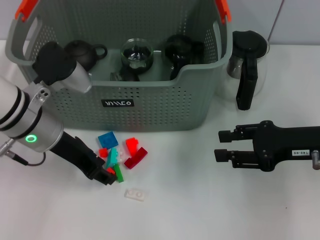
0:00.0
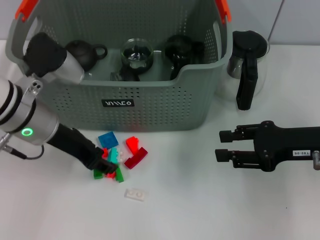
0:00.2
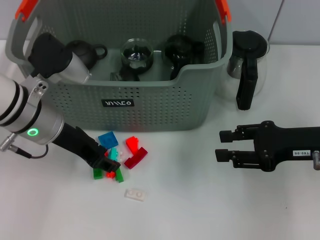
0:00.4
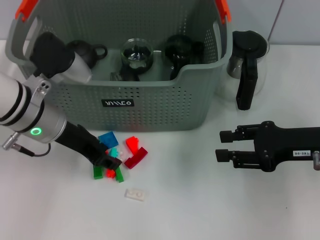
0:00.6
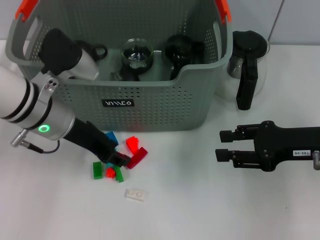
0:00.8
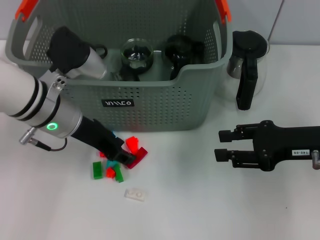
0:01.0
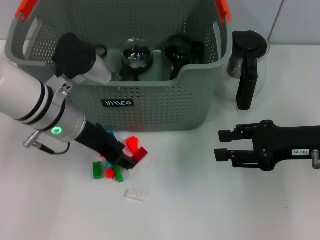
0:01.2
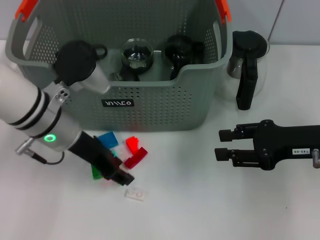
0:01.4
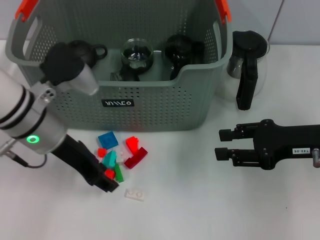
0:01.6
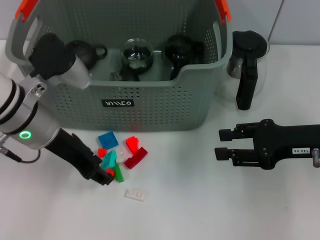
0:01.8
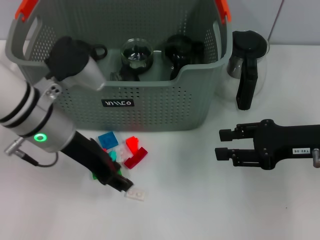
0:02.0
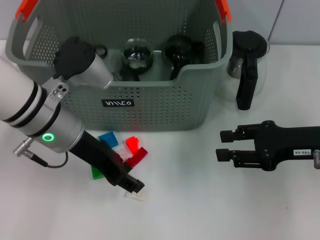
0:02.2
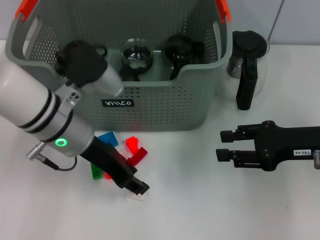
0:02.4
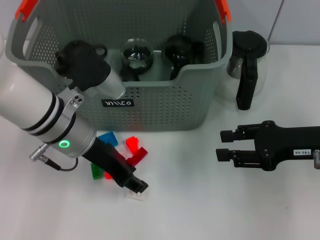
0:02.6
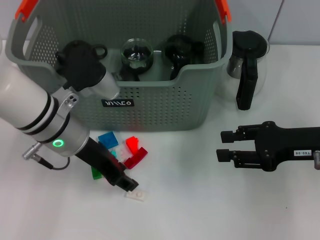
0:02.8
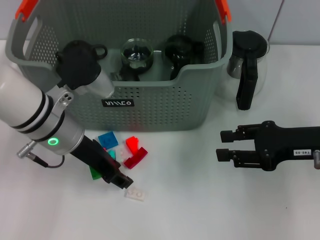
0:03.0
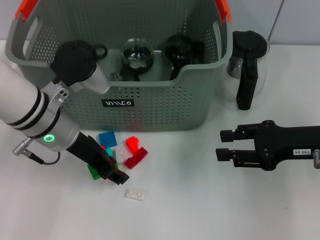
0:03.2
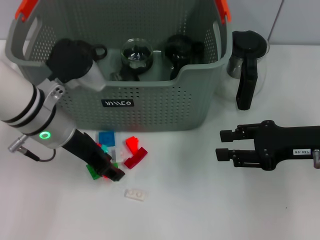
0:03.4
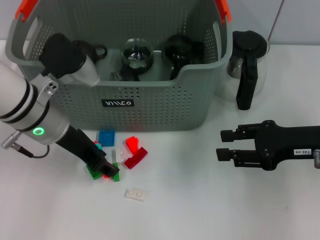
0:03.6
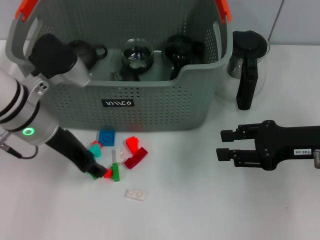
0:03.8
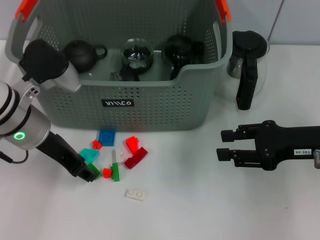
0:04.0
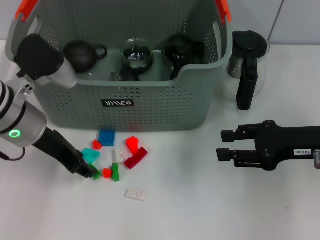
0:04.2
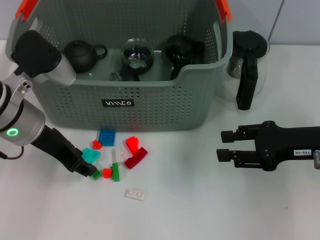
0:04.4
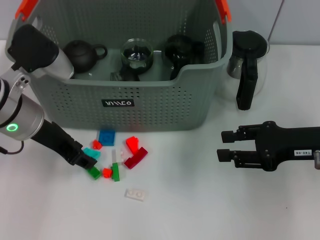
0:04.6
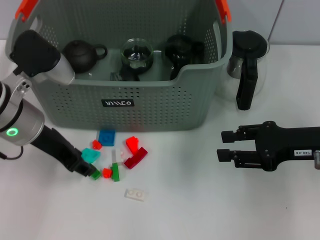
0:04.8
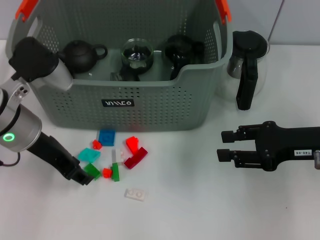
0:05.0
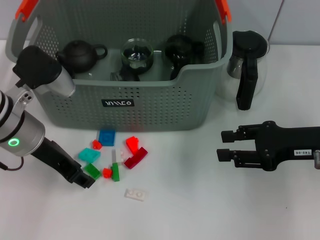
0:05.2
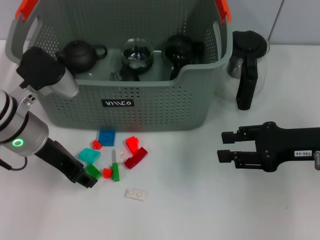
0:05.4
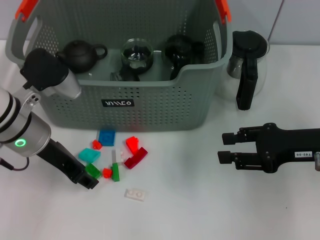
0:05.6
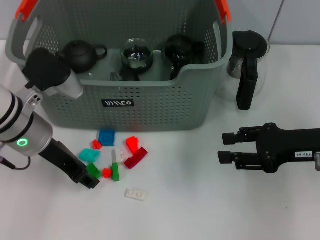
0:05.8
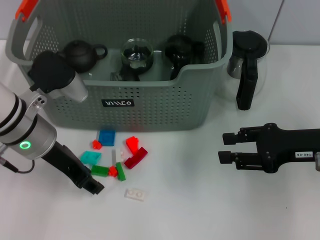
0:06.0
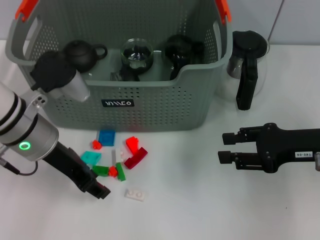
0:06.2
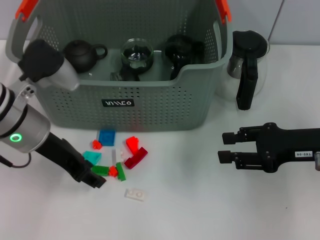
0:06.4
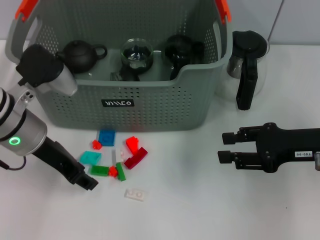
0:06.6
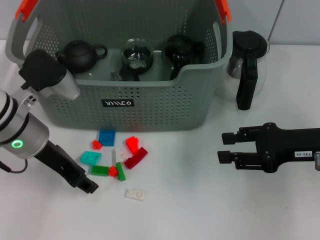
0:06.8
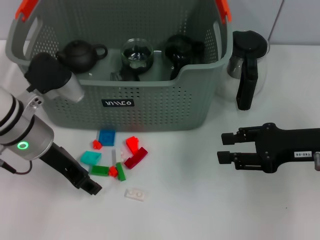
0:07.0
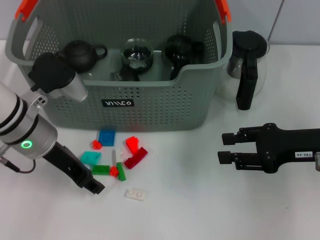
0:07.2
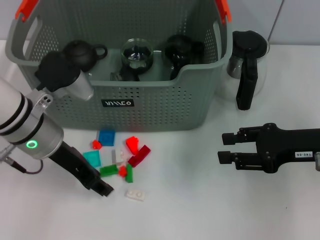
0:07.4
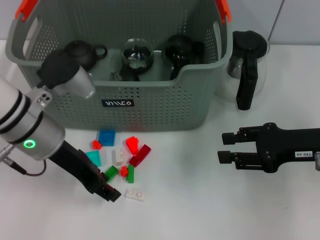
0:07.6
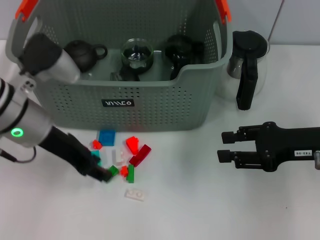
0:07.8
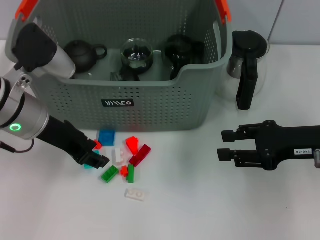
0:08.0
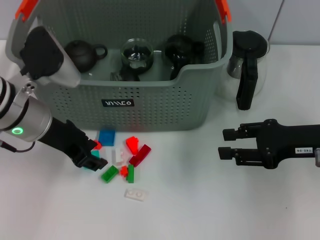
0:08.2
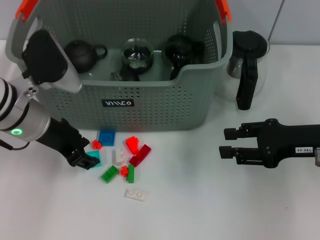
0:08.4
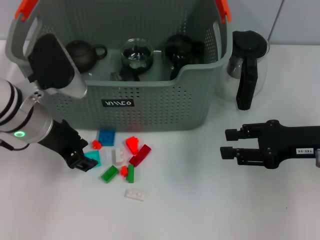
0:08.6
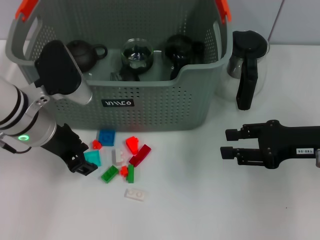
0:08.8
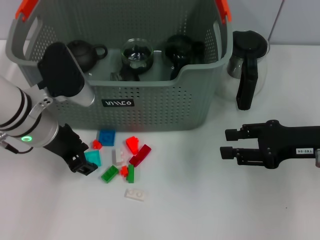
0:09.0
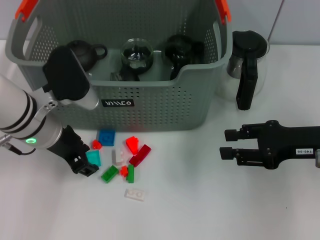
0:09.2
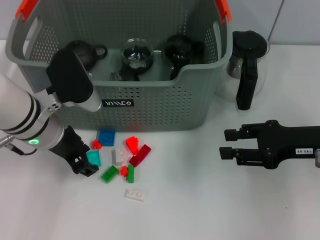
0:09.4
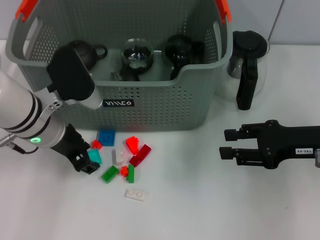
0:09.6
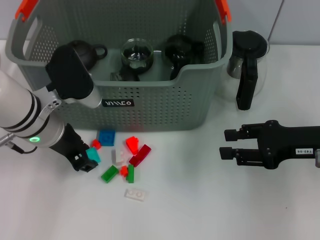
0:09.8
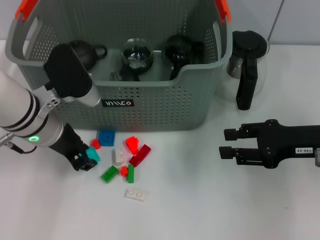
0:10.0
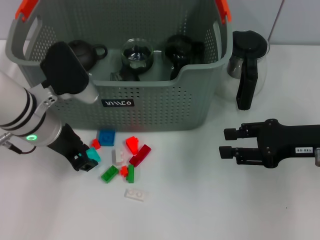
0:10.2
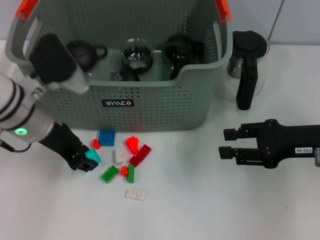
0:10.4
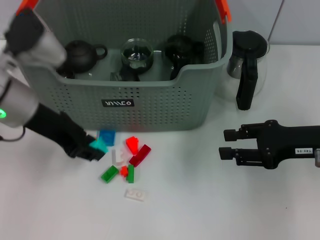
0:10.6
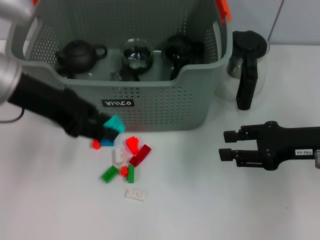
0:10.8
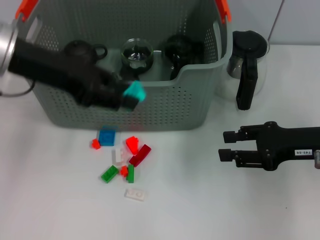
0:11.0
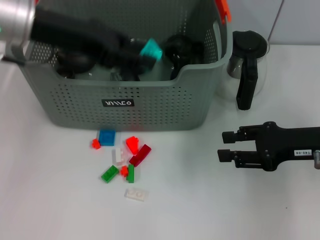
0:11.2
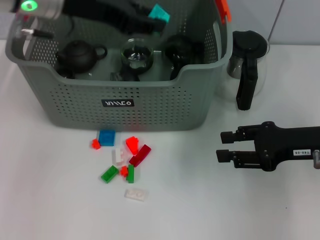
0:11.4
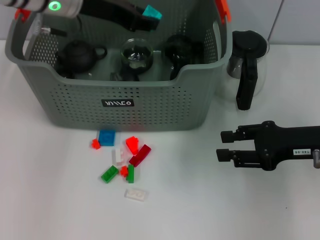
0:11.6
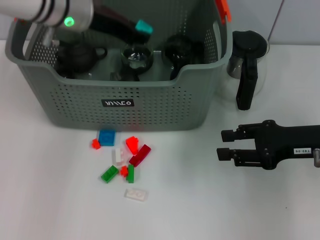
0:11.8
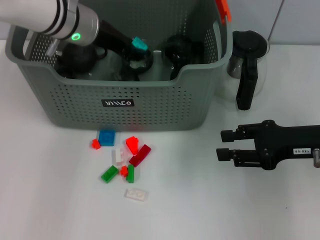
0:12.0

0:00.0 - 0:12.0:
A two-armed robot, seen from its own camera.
Task of the whole recording: pick up the teacup on the table and place it into the storage bin, pick up the block on the table and place it into the storage bin.
Step, 0:00.0 - 0:10.4: Grasp the light blue block with left gripper.
0:00.0 - 0:03.0: The grippers make only small movements.
0:03.0 - 0:04.4: The left gripper shifts by roughly 5 cm.
0:04.4 - 0:07.6: The grippers make only small movements.
0:09.0 - 0:10.4: The grippers make only small movements.
0:10.4 - 0:12.0: The left gripper is displaced forward by roughly 10 cm.

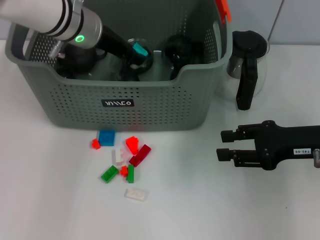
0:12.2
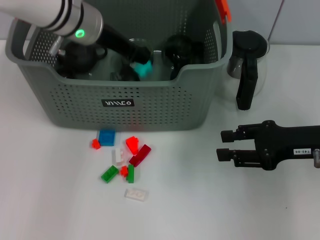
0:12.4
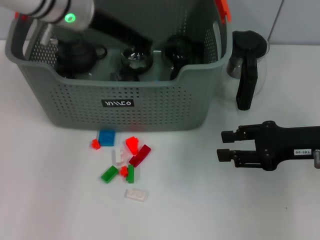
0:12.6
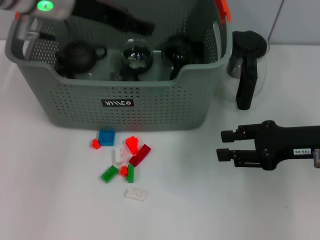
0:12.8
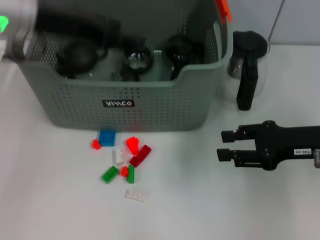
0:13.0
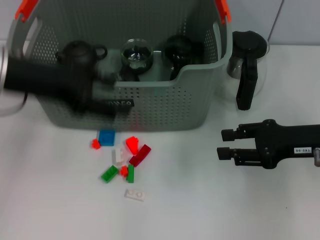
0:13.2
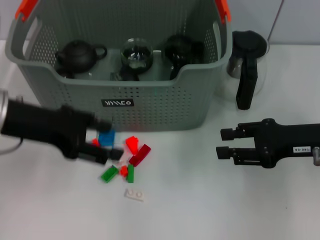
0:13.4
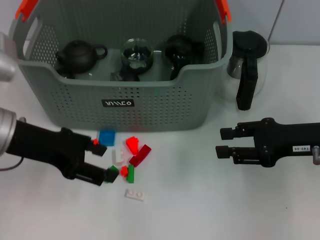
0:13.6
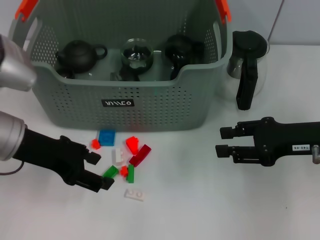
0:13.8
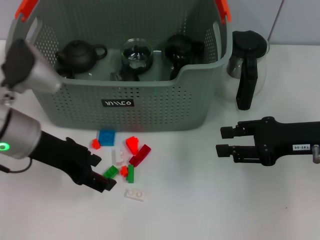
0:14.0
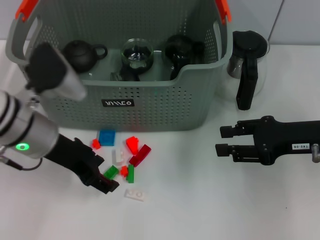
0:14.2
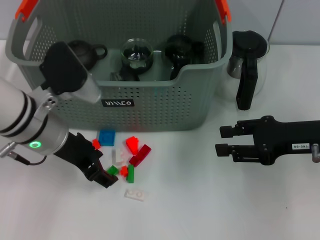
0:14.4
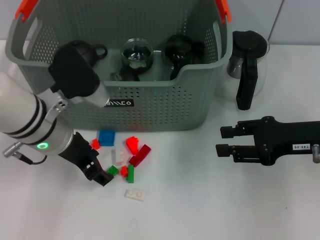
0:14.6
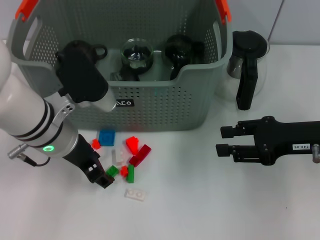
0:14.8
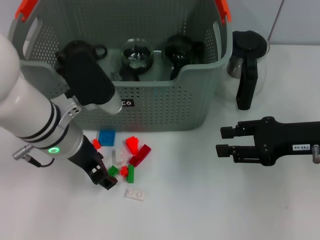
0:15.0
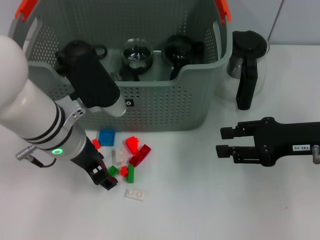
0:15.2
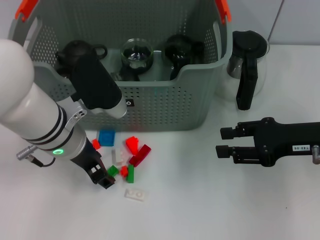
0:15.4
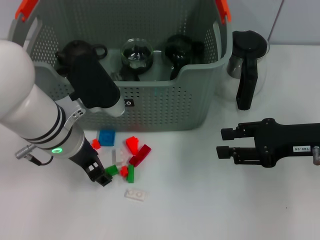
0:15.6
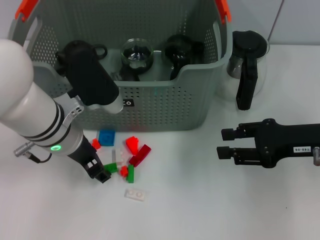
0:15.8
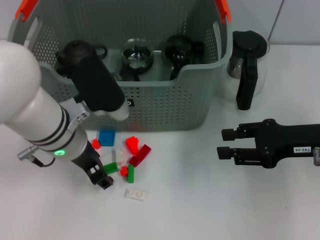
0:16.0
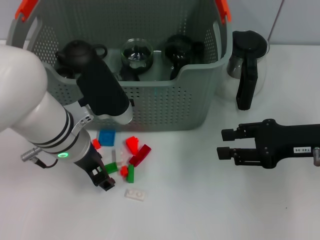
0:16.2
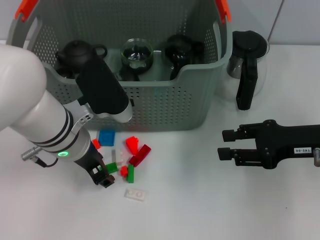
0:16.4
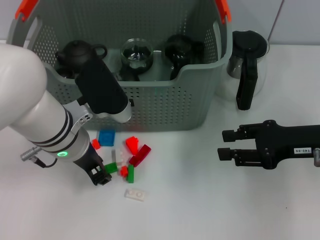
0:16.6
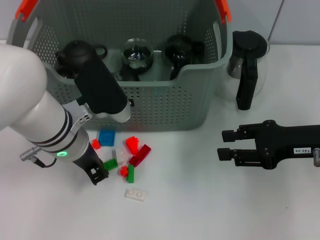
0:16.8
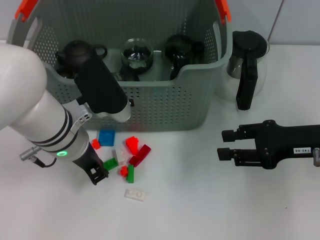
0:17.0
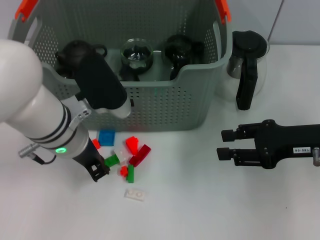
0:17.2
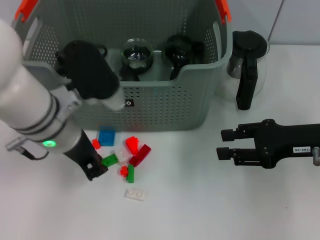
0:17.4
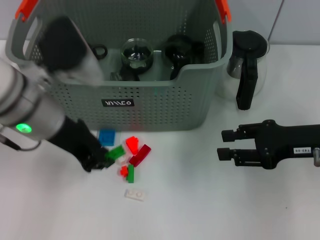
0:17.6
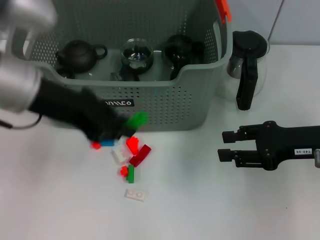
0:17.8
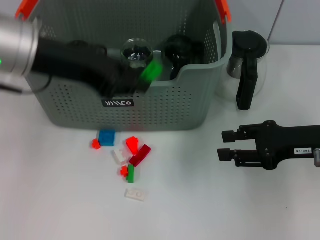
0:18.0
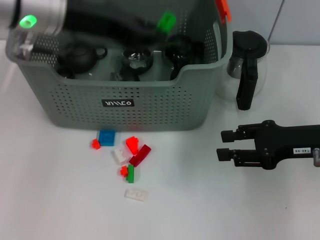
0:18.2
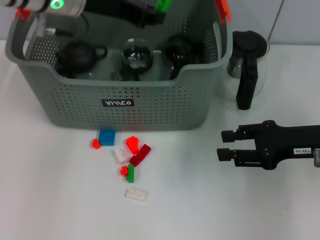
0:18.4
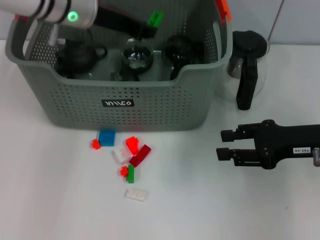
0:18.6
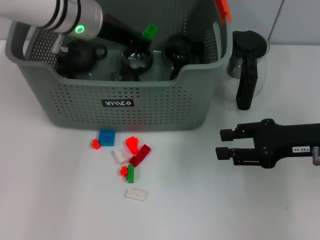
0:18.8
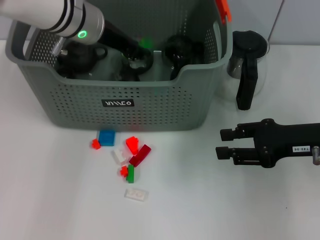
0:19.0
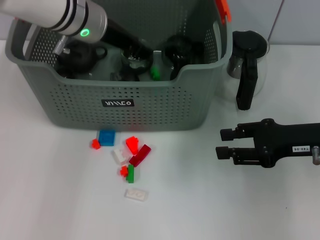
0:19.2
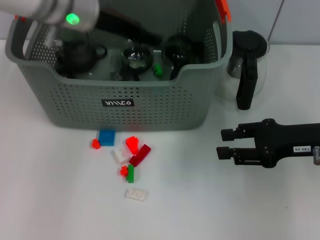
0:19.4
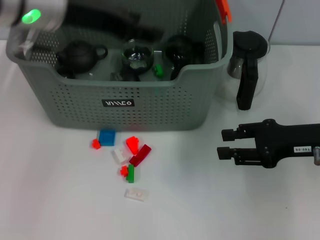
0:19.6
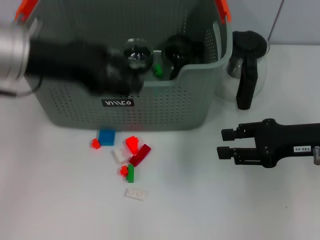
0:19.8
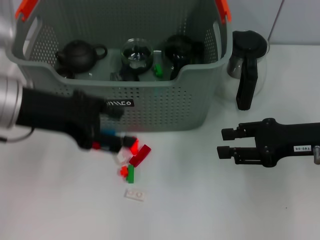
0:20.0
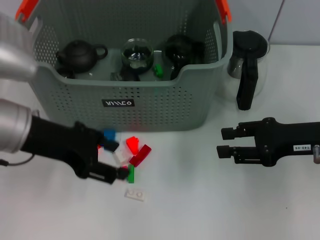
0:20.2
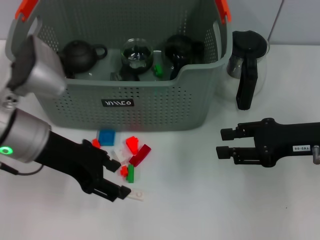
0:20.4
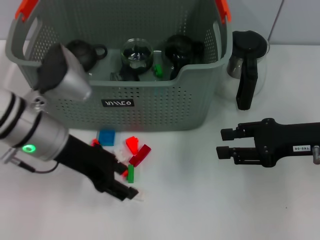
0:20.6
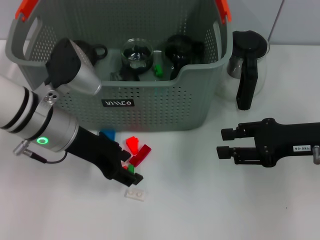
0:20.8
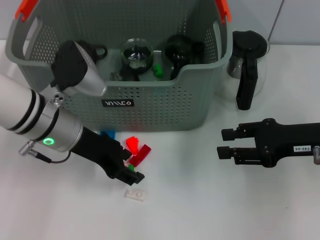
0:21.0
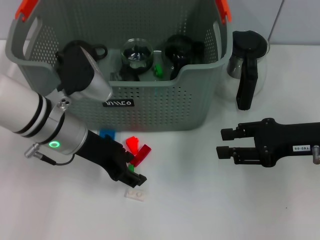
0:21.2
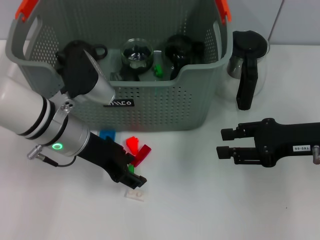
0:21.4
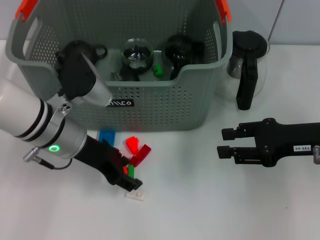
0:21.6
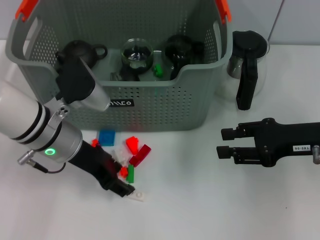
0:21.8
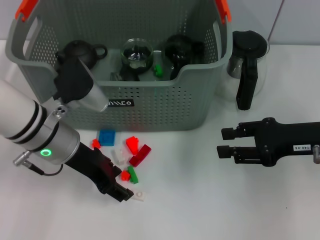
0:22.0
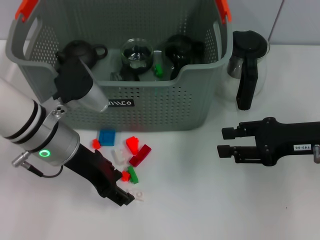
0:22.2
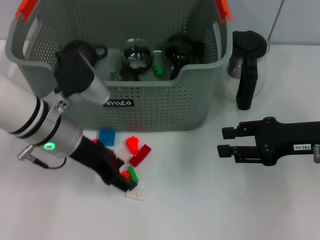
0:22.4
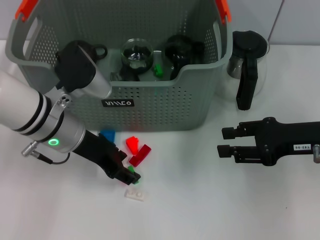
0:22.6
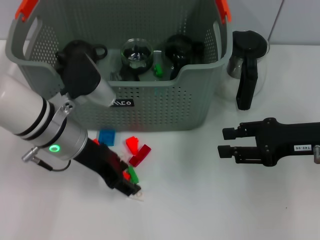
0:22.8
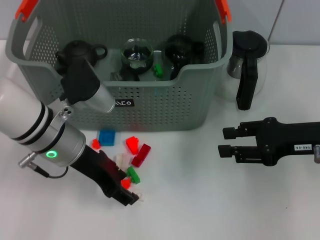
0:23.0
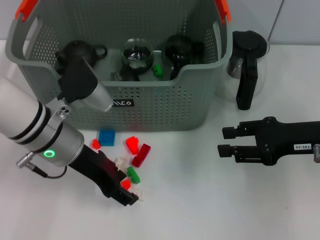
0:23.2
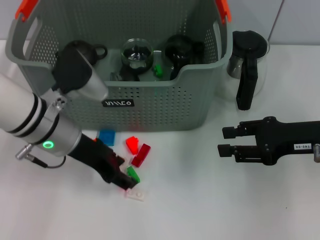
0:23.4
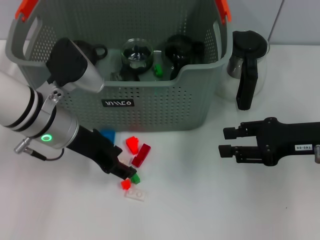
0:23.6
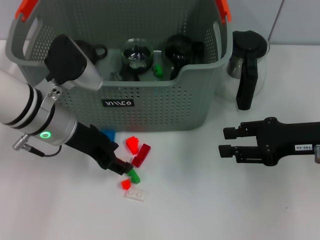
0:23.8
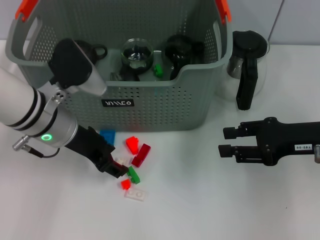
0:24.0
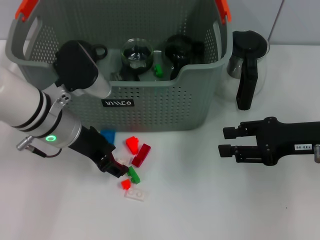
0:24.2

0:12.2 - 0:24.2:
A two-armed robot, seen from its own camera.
Task of the whole recording: pick up the teacup on the table and place it into the storage bin, pick up the block on the table and place it into the storage bin.
Step, 0:12.8 - 0:17.4: Grasp the green block with left gripper.
Step, 0:17.6 - 0:19.4: Place the green block in the storage box with left gripper.
0:12.2 - 0:13.8: The left gripper travels backward and to the left by roughly 15 cm, and opens its fingers.
0:13.8 - 0:15.2: The left gripper shifts approximately 10 cm to the right.
0:15.2 - 0:16.6: The two grippers keep their place.
0:16.6 - 0:18.2: The left gripper heads upward, covering roughly 15 cm, and closes up.
0:18.2 - 0:19.8: The left gripper opens.
0:19.8 - 0:21.2: The left gripper travels downward by approximately 10 cm.
0:21.2 - 0:24.2: The grippers move only a little.
